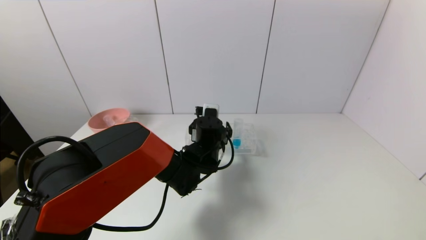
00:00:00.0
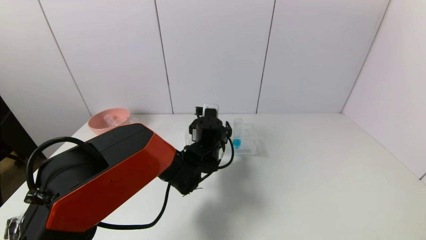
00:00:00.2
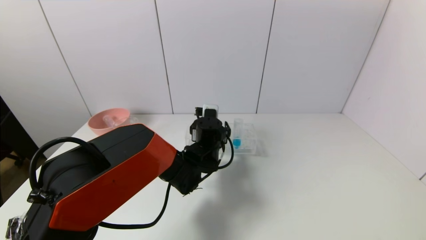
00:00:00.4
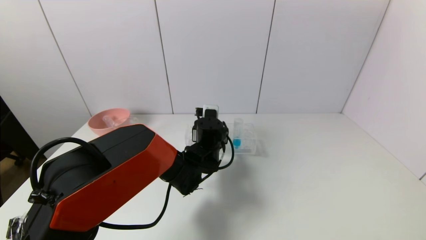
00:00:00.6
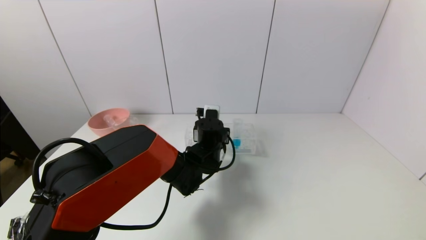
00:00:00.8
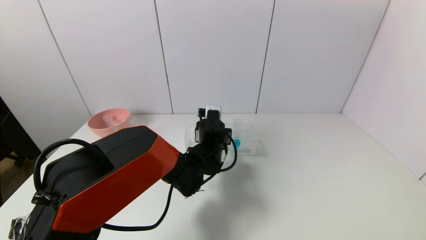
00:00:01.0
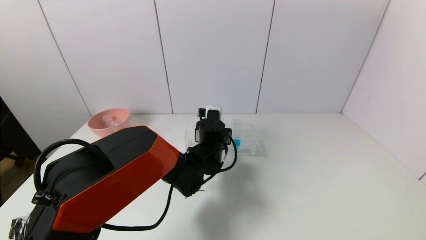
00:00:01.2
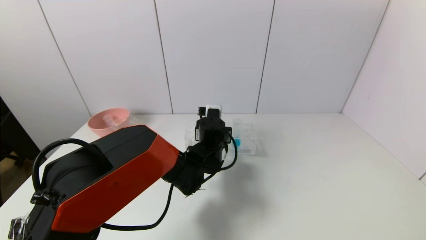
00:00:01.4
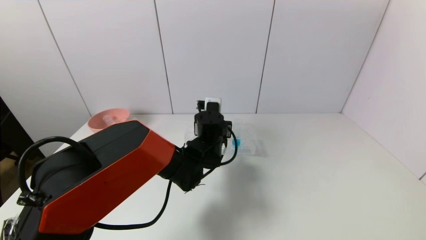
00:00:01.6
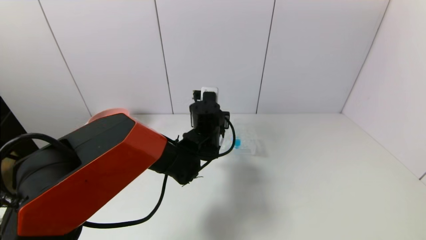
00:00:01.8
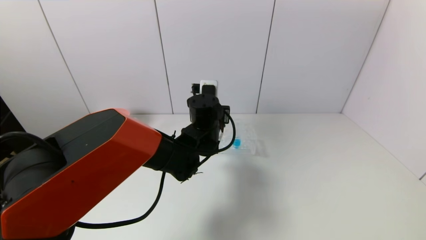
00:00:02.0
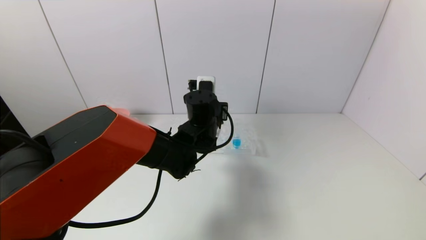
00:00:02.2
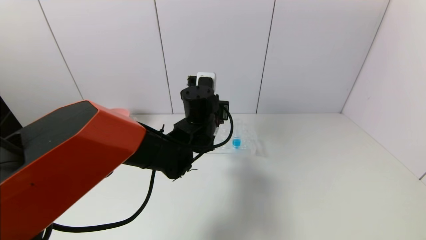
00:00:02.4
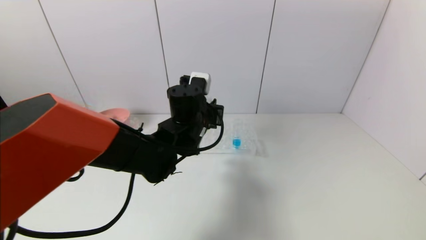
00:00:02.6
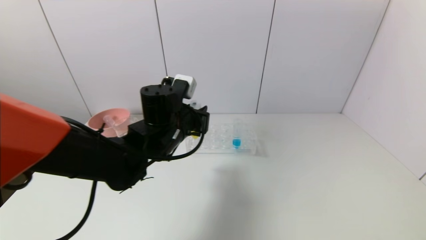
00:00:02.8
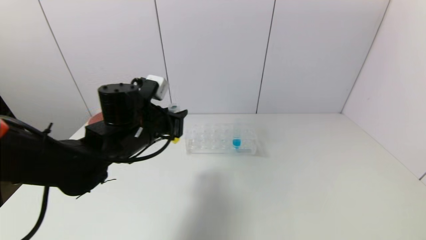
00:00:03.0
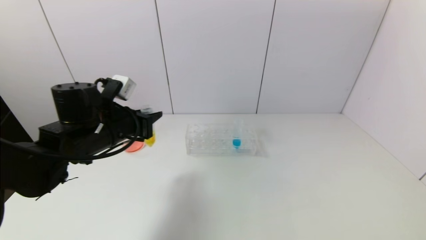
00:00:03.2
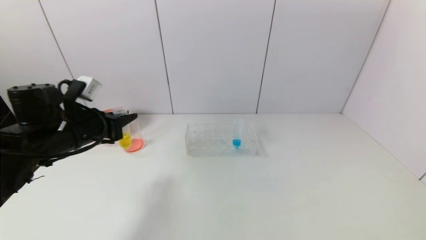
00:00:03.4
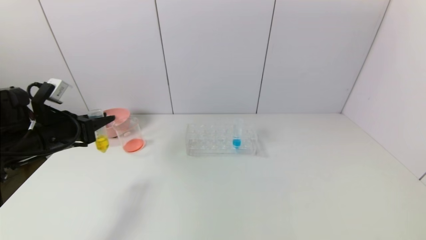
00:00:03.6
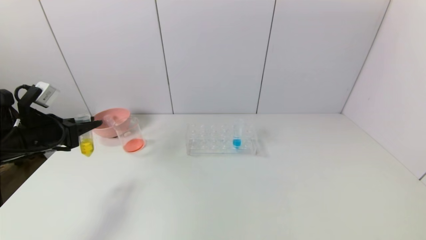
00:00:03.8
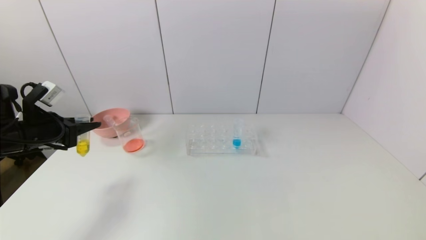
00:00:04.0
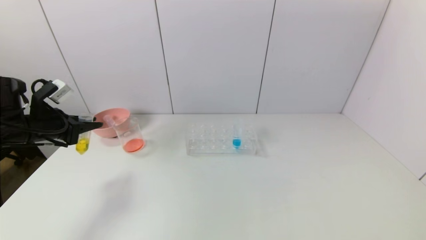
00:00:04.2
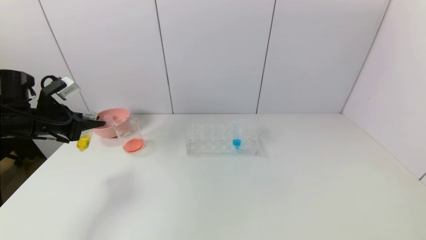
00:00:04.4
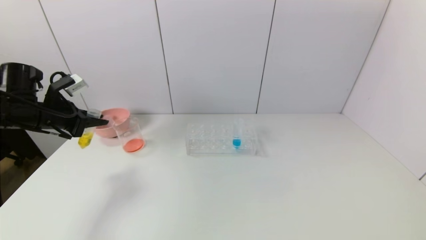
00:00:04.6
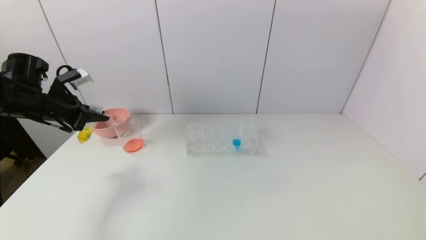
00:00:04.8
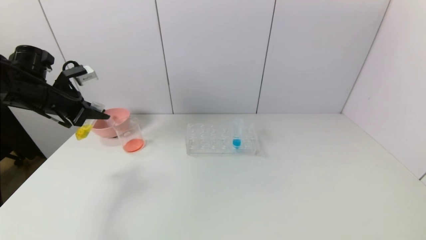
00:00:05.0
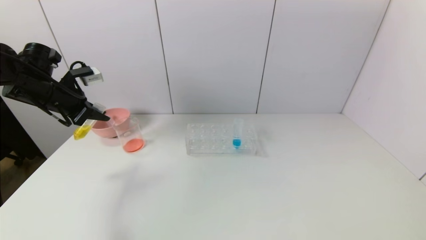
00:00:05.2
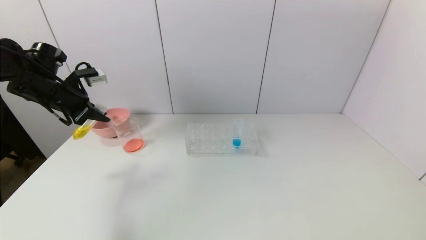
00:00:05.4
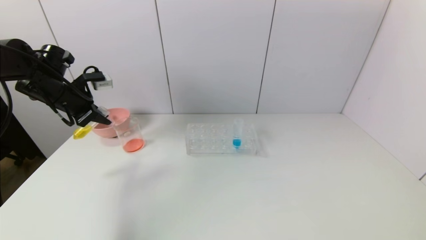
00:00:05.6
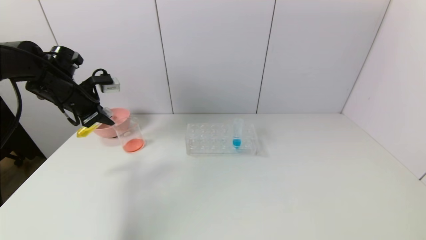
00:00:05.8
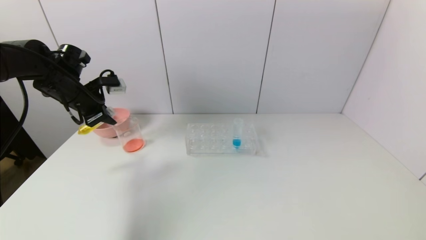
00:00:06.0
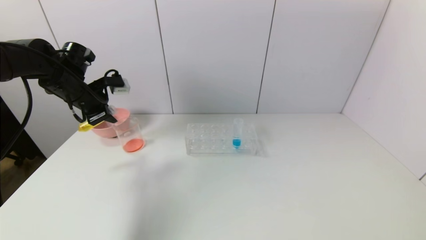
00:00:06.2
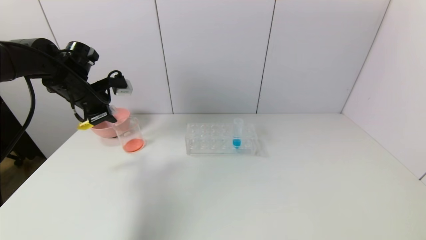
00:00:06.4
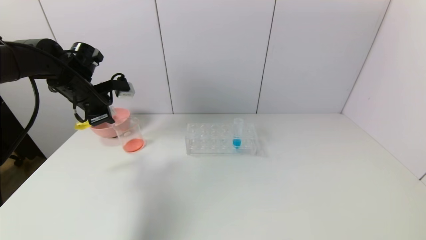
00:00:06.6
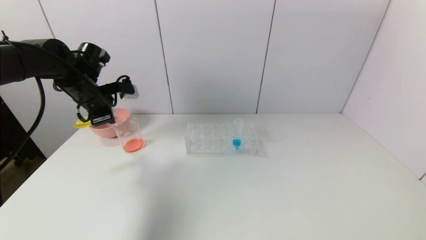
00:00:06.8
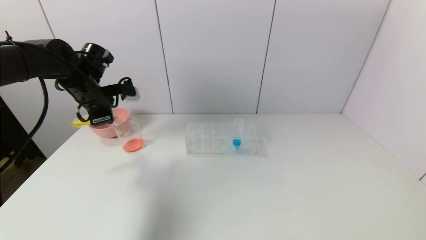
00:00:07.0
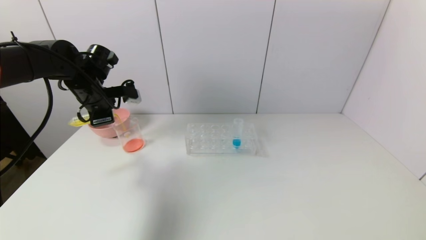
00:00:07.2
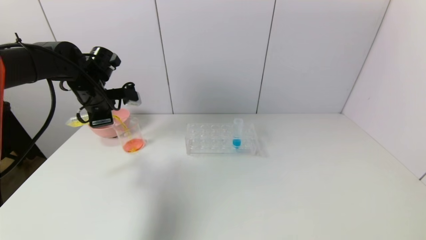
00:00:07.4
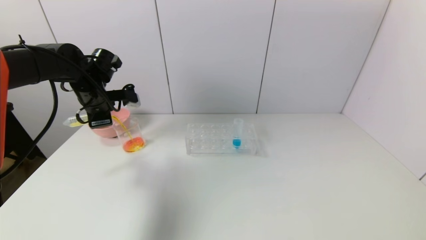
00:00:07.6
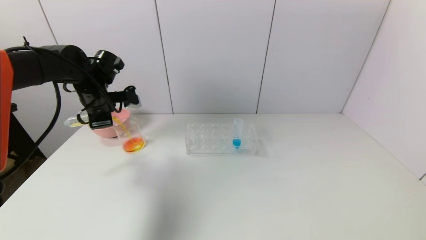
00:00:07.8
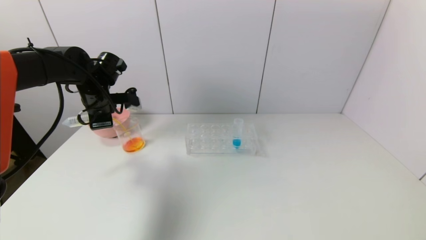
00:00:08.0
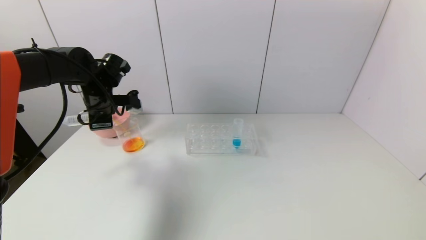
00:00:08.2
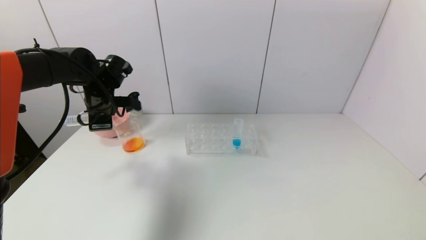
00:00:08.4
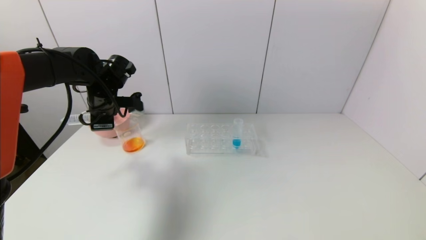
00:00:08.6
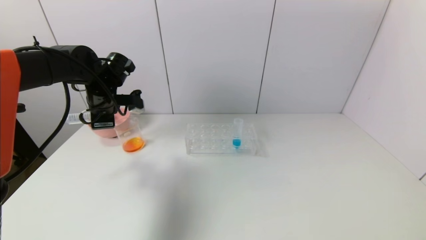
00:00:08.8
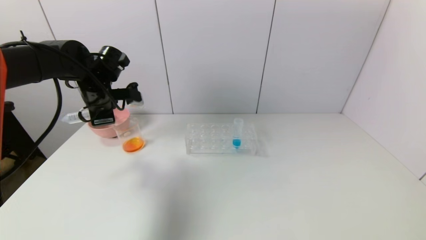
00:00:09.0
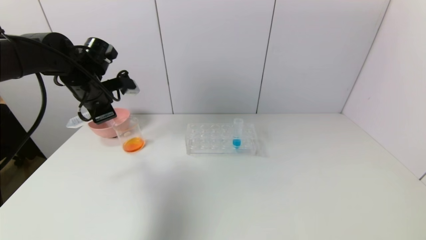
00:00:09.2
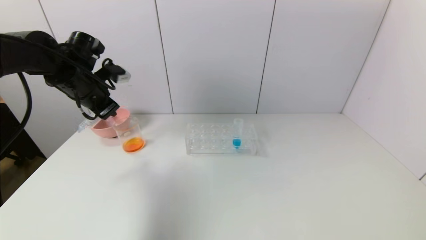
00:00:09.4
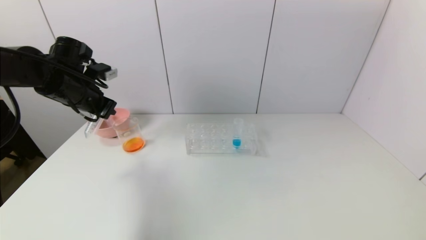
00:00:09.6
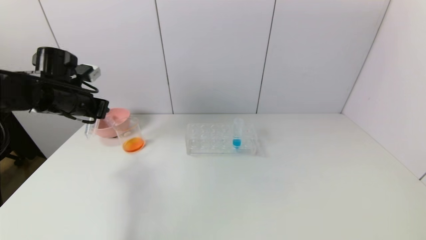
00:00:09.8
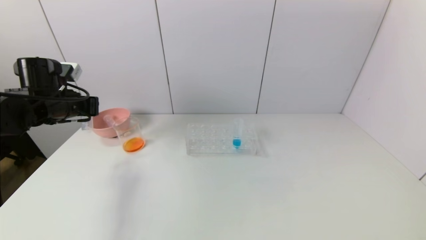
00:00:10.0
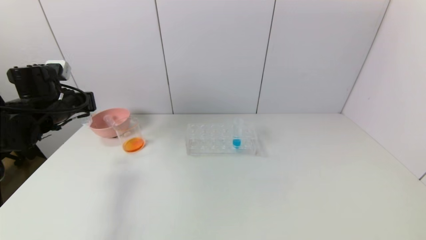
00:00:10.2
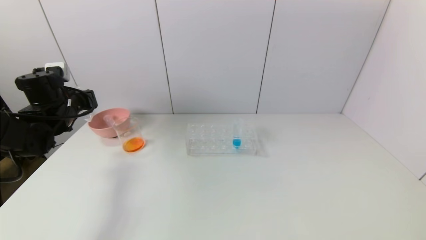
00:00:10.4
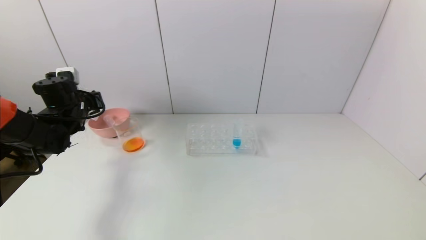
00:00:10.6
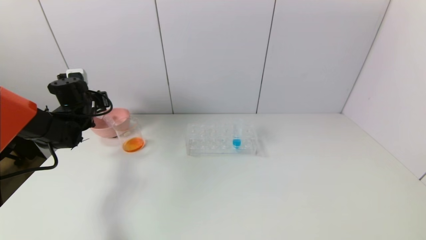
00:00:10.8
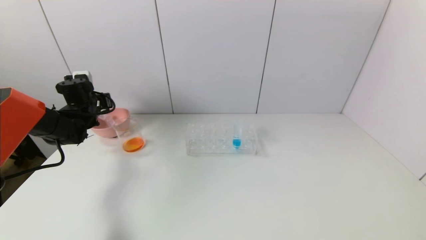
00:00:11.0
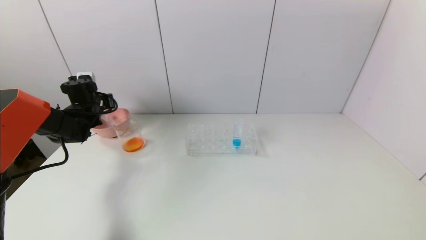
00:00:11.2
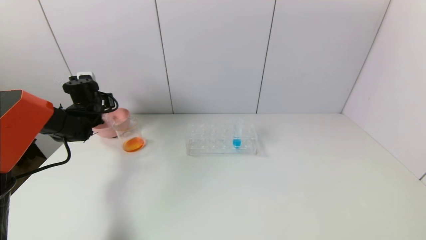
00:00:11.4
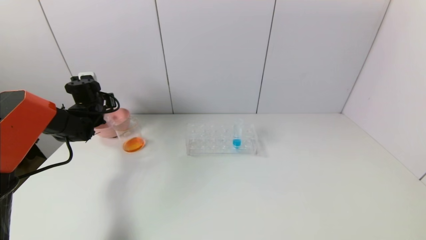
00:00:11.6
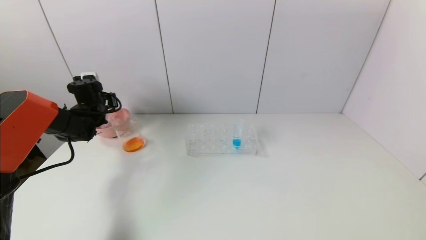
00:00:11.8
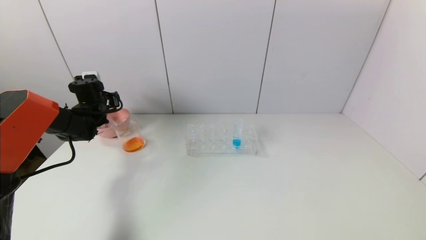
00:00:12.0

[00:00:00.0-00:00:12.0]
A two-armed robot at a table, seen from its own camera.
Task of the whole recording: pick up the test tube with yellow pigment and the test tube with red pigment by grippers and pour them into the beaker.
Step, 00:00:01.4 to 00:00:08.6: Pour the yellow reagent into the graduated cylinder with the left gripper.
Step, 00:00:08.8 to 00:00:11.8: Place the test tube into the pink bowl with the left gripper.
00:00:00.0 to 00:00:01.6: The left gripper closes.
00:00:01.6 to 00:00:03.0: The left gripper heads to the left, upward and backward, covering about 20 cm.
00:00:03.0 to 00:00:04.4: The left gripper moves to the left, about 20 cm.
00:00:04.4 to 00:00:06.0: The left gripper goes about 5 cm forward.
00:00:07.6 to 00:00:09.0: The grippers move only a little.
00:00:09.0 to 00:00:10.4: The left gripper moves to the left, roughly 10 cm.
00:00:10.4 to 00:00:12.0: The left gripper goes about 10 cm forward, and opens.

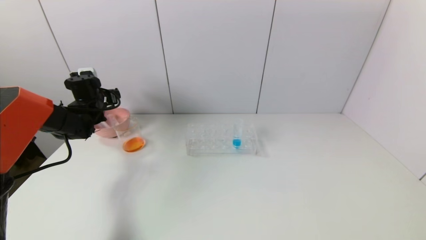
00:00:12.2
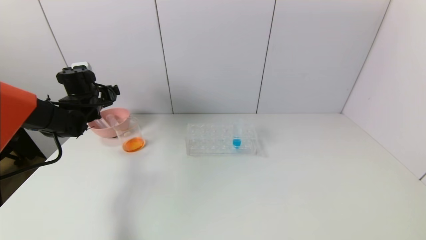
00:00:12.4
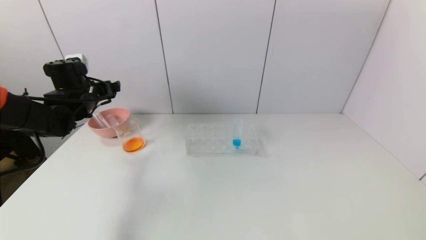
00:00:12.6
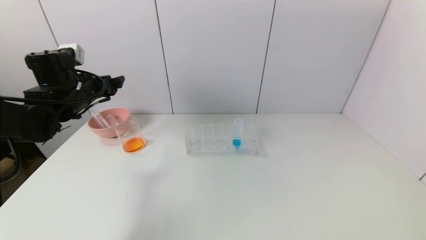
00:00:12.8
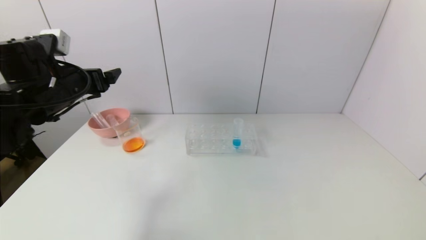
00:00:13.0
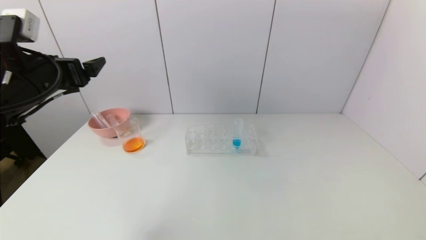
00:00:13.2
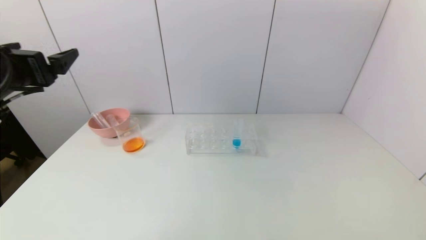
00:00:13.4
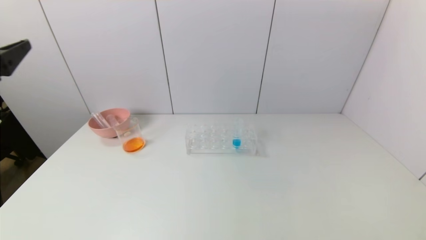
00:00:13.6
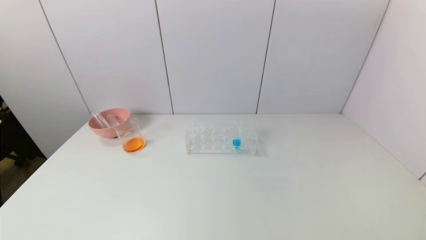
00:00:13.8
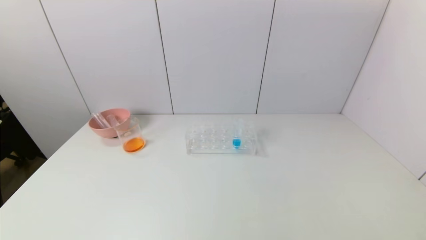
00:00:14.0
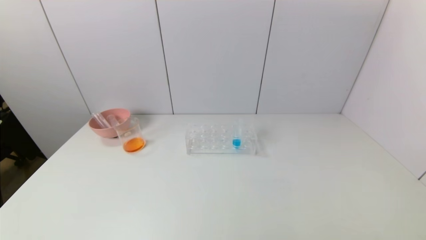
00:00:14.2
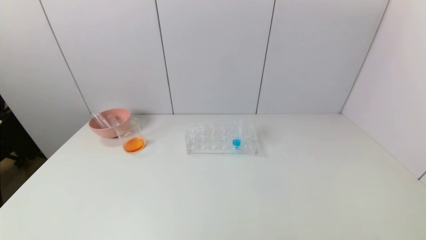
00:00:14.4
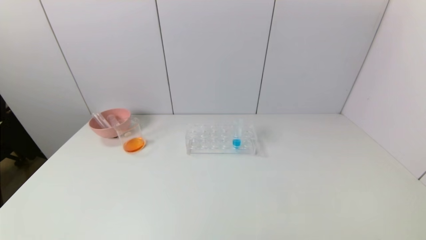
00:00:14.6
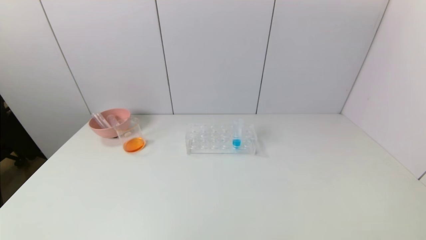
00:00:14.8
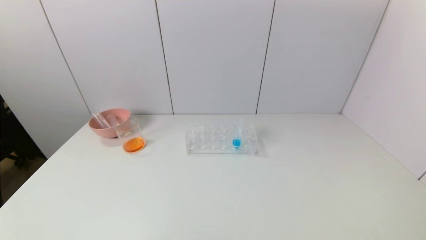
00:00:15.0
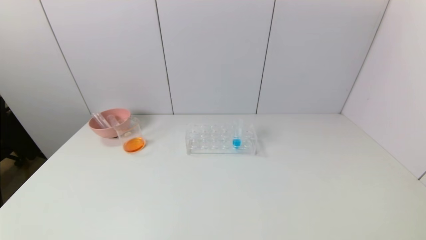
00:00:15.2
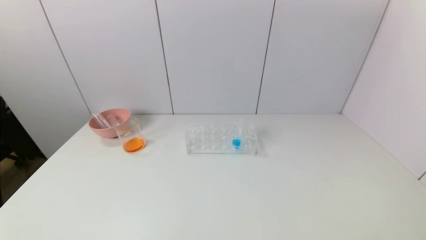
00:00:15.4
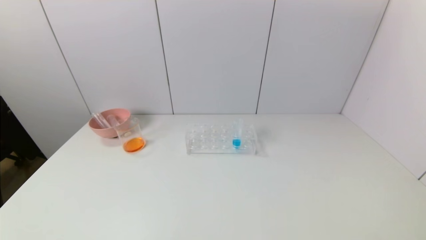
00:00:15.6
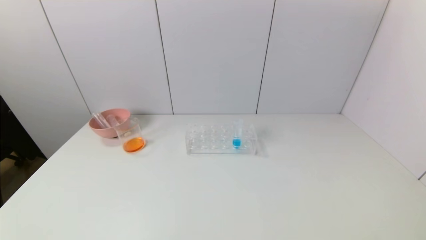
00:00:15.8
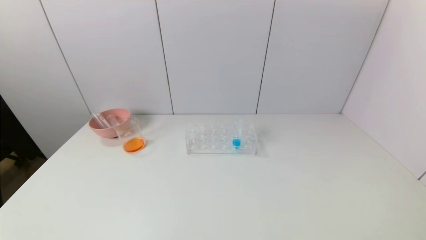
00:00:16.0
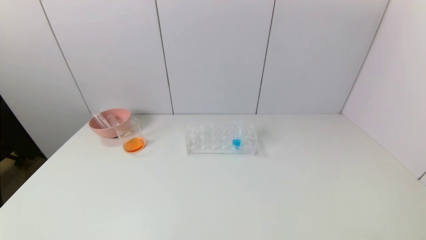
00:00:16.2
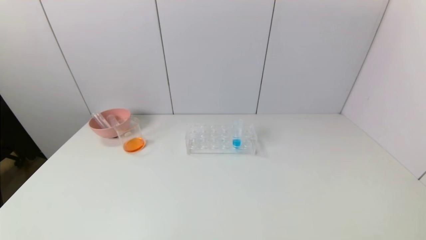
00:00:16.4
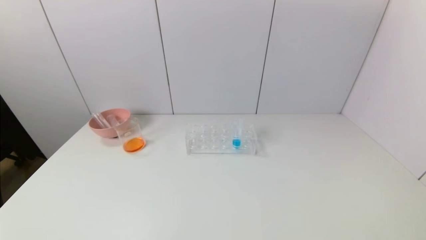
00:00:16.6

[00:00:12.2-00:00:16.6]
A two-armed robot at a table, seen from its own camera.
Task of the whole recording: pick up the test tube with yellow pigment and the test tube with red pigment by grippers and pour them into the beaker.
00:00:12.2 to 00:00:13.6: The left gripper heads backward and upward, covering about 35 cm.
00:00:13.6 to 00:00:15.2: The left gripper heads downward and backward, covering about 30 cm.
